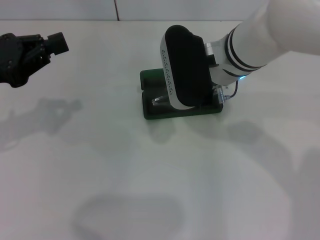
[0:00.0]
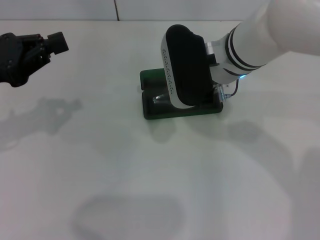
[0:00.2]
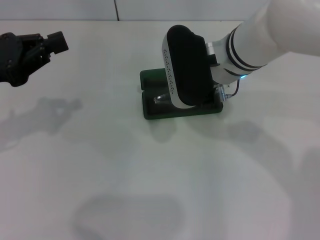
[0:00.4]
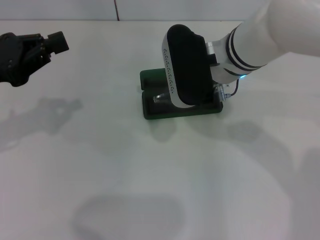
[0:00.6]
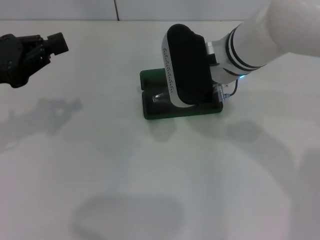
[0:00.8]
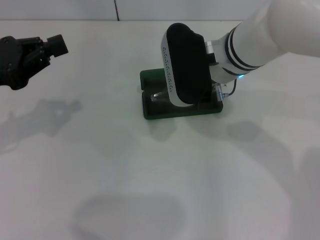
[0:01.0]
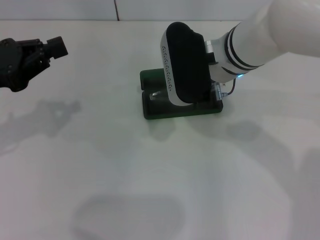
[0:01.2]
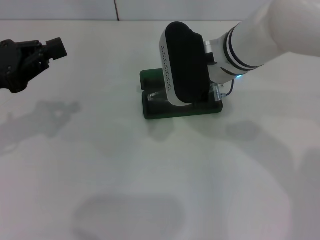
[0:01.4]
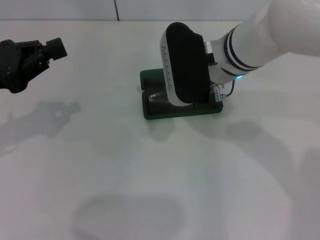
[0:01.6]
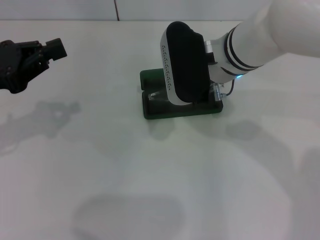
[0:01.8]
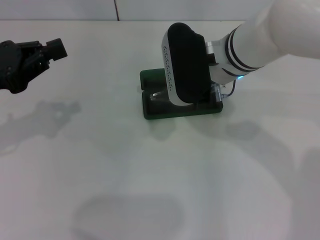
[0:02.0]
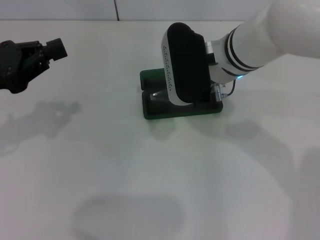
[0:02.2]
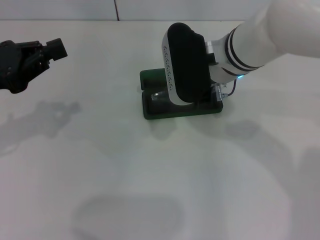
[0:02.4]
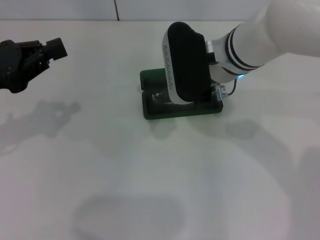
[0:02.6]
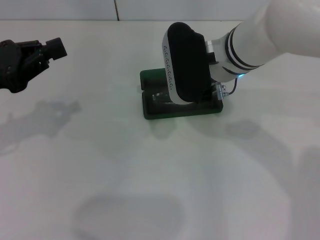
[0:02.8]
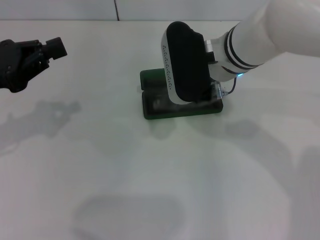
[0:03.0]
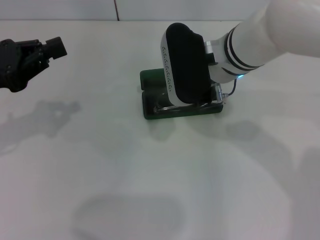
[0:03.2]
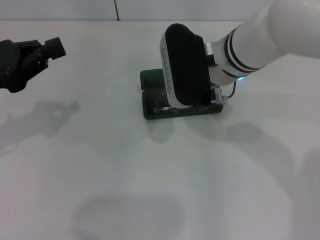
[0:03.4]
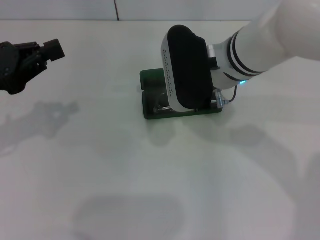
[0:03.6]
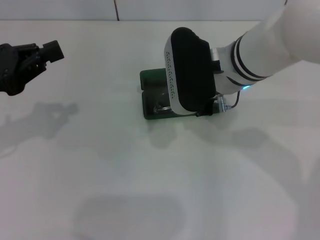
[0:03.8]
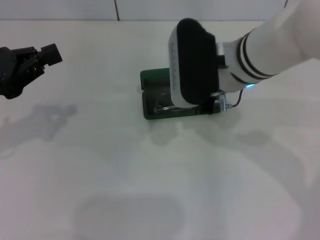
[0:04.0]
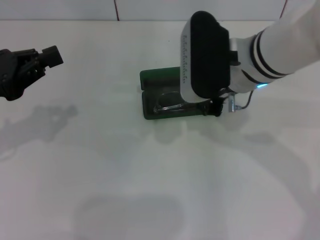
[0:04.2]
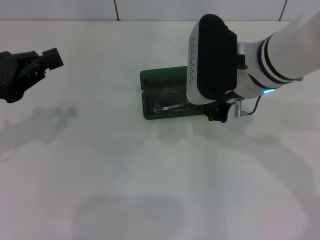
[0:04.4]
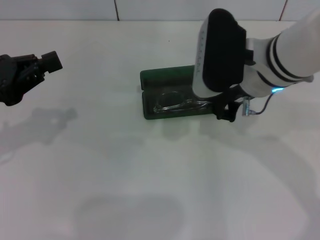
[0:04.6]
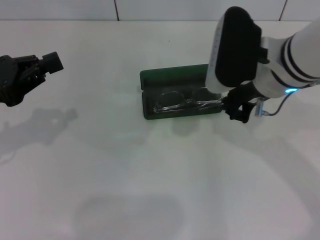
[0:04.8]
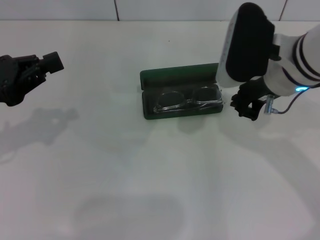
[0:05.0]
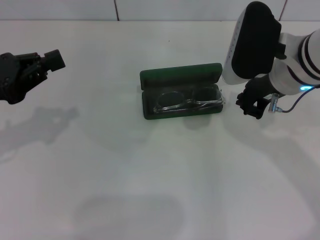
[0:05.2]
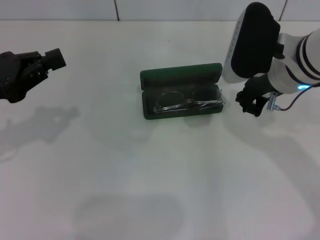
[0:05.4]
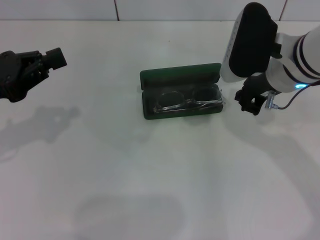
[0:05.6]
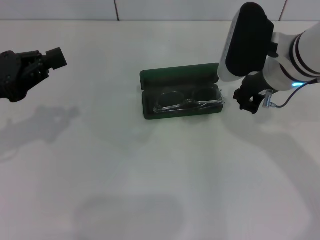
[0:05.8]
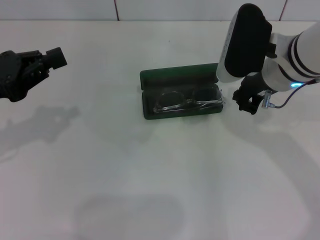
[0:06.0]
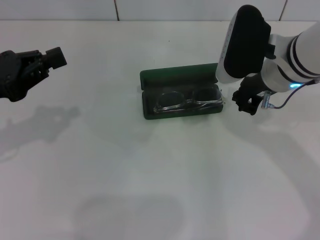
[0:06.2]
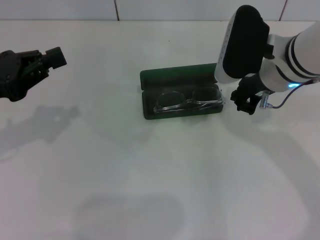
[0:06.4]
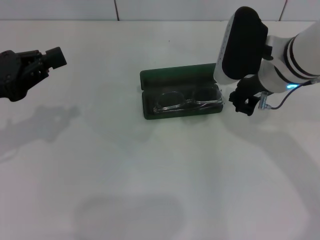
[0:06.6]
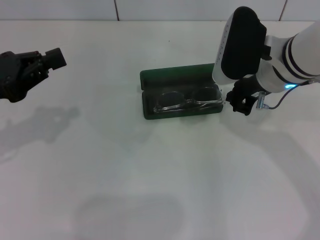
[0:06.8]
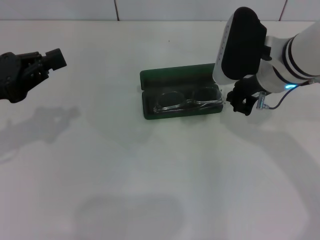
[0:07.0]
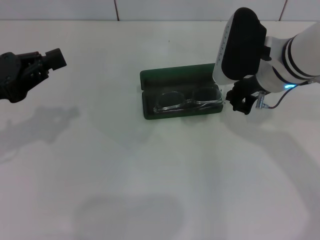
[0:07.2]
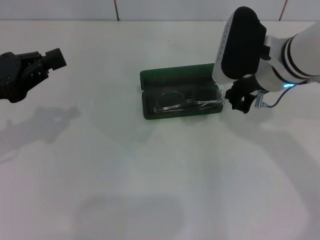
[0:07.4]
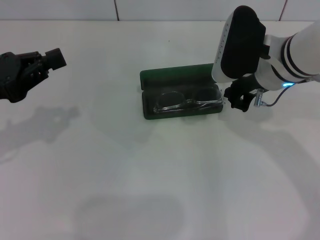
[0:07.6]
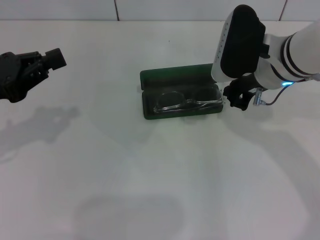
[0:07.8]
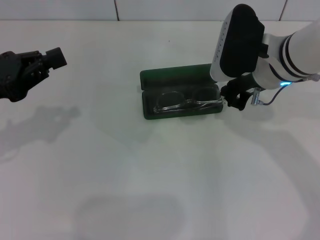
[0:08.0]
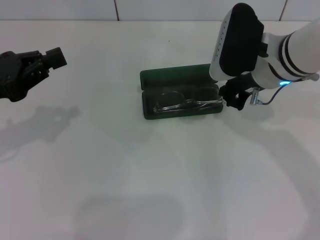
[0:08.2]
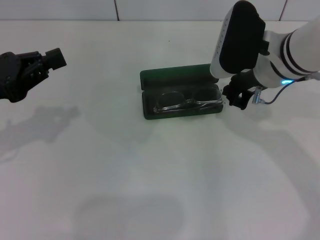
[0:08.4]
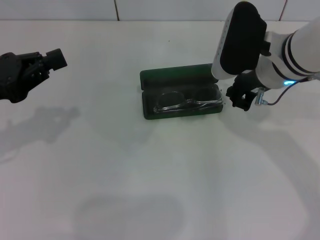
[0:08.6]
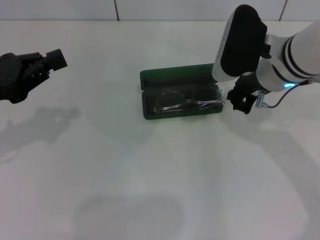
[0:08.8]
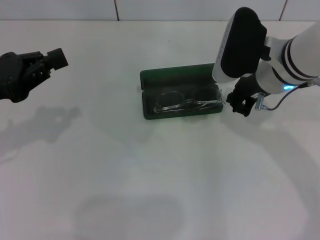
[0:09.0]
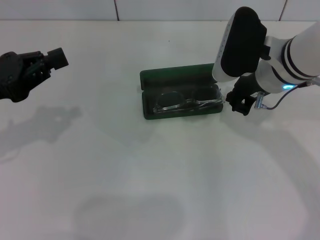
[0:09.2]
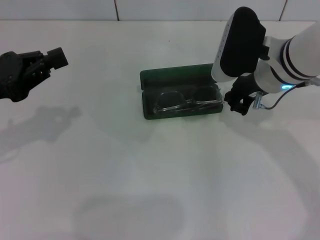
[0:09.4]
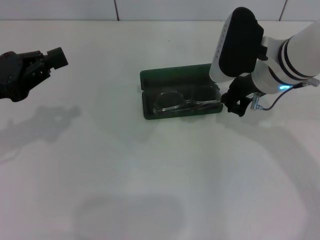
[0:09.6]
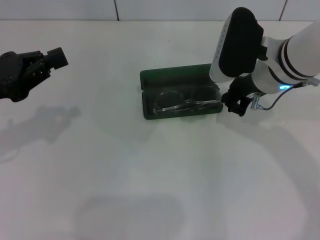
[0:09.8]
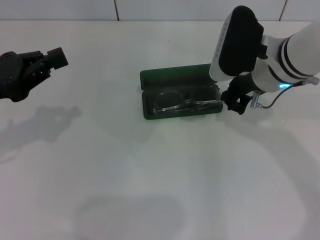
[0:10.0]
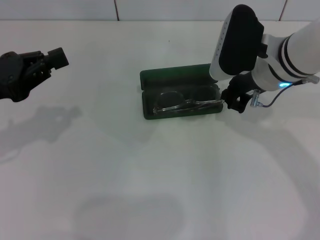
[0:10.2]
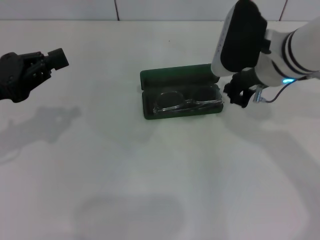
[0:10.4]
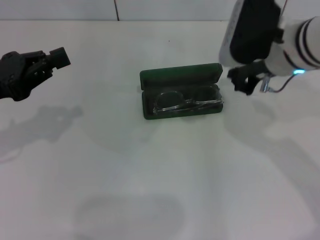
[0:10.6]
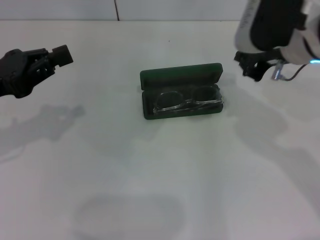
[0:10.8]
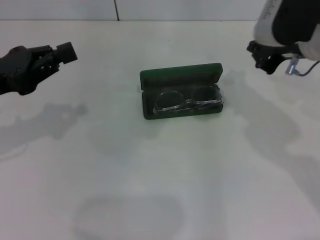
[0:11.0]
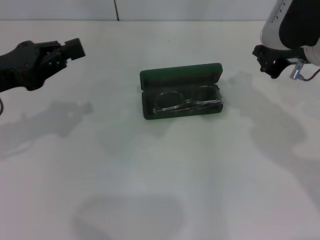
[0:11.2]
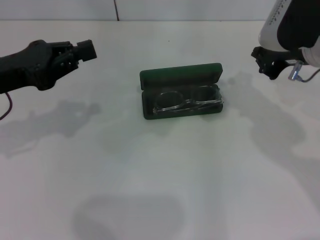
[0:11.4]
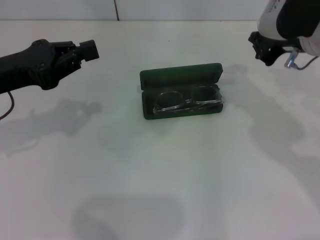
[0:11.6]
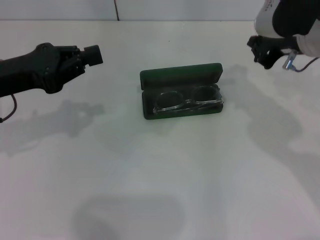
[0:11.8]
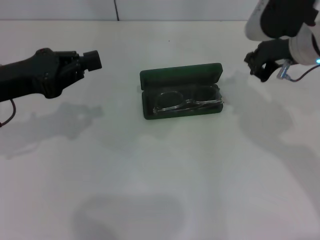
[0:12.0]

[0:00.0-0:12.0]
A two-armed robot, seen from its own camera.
Step, 0:00.0 to 0:03.6: Put the glasses into the case with your right hand.
0:00.0 to 0:03.0: Neither gripper changes place.
0:03.0 to 0:04.4: The right gripper moves about 5 cm.
0:04.4 to 0:06.0: The right gripper ends up some 5 cm from where it was.
0:06.0 to 0:07.6: Both grippers stay about where they are.
0:07.6 to 0:10.4: Neither gripper changes place.
0:10.4 to 0:12.0: The right gripper moves roughly 5 cm.

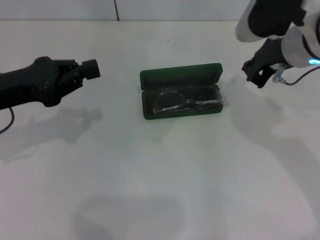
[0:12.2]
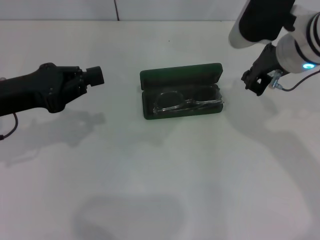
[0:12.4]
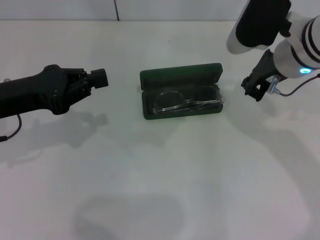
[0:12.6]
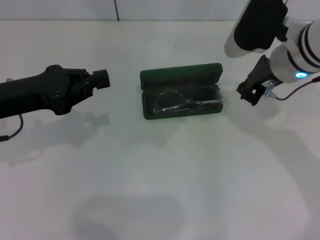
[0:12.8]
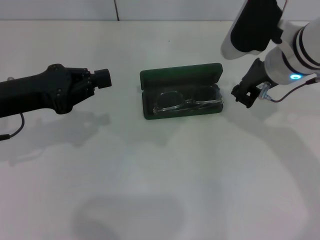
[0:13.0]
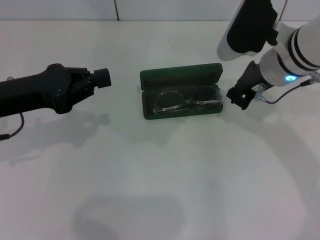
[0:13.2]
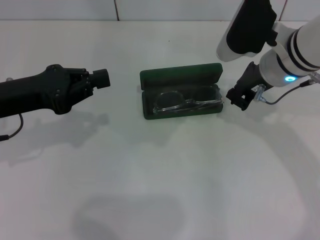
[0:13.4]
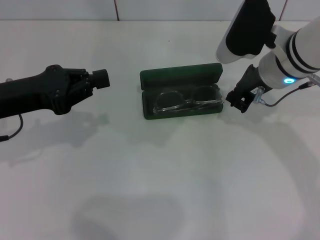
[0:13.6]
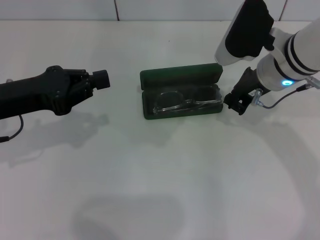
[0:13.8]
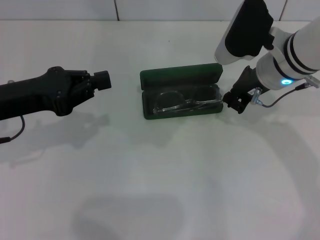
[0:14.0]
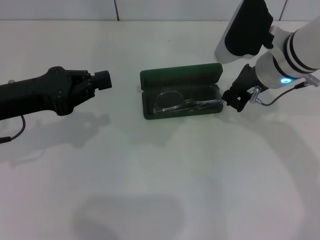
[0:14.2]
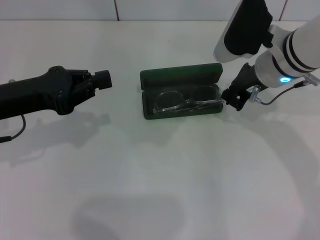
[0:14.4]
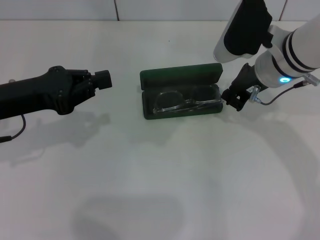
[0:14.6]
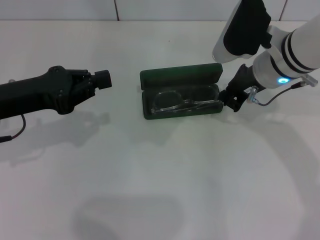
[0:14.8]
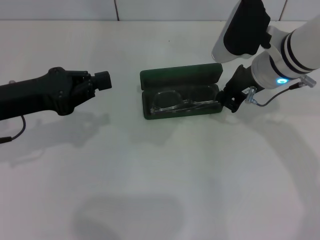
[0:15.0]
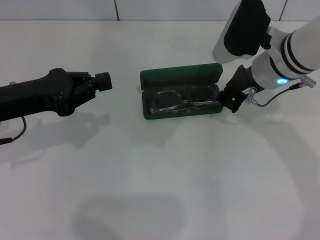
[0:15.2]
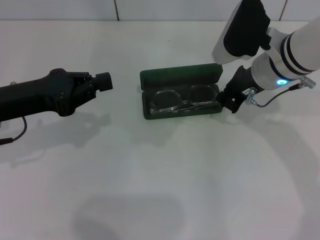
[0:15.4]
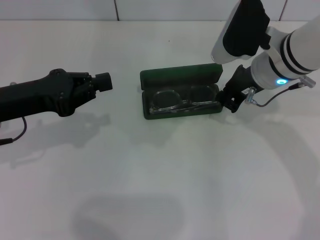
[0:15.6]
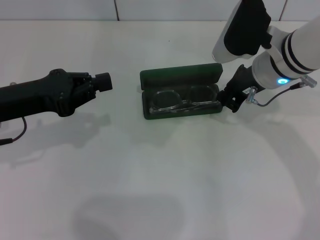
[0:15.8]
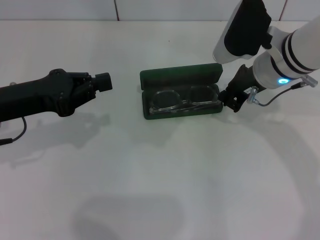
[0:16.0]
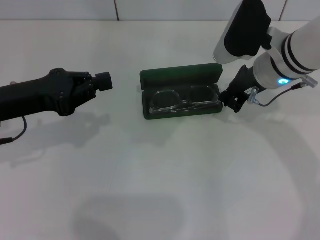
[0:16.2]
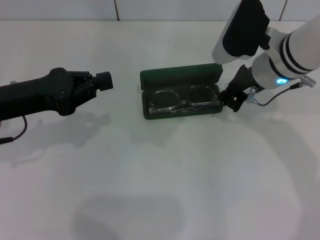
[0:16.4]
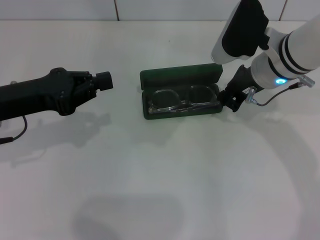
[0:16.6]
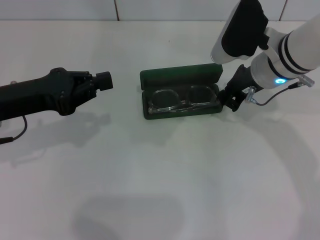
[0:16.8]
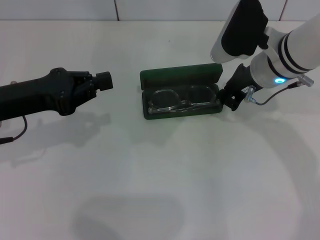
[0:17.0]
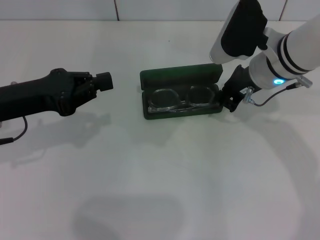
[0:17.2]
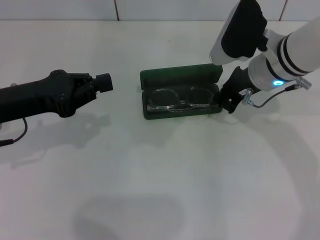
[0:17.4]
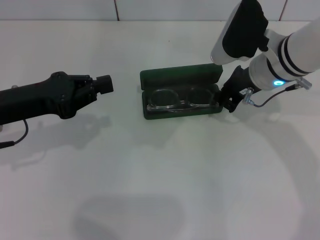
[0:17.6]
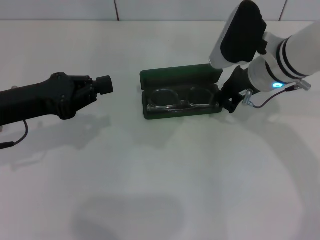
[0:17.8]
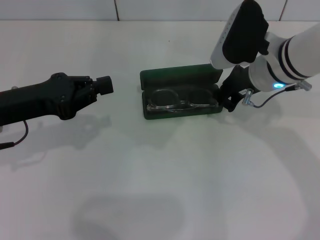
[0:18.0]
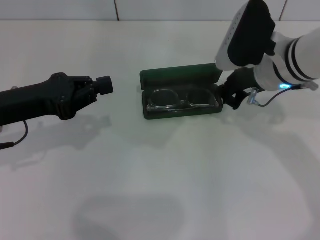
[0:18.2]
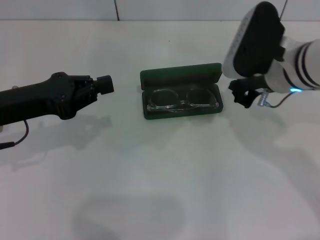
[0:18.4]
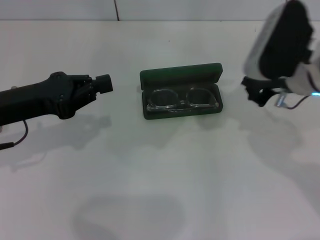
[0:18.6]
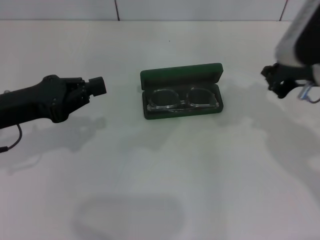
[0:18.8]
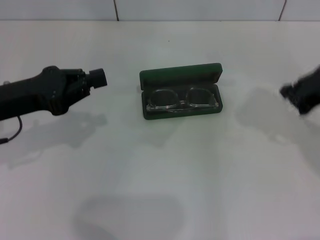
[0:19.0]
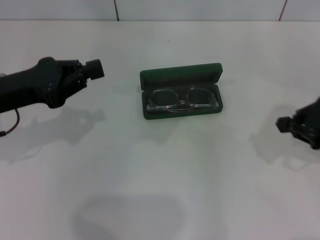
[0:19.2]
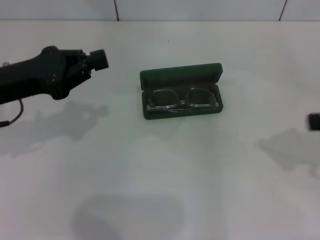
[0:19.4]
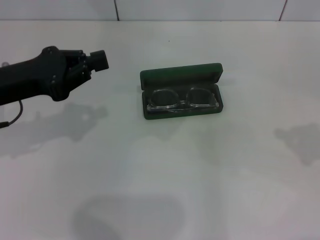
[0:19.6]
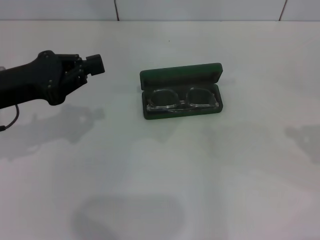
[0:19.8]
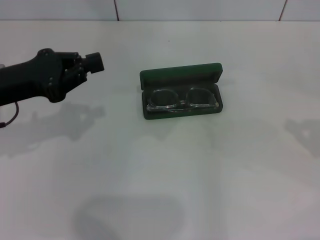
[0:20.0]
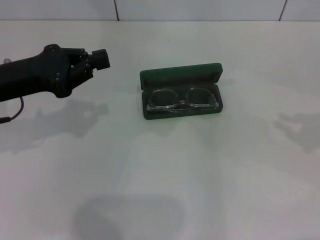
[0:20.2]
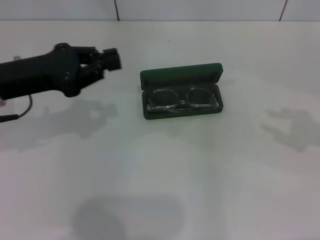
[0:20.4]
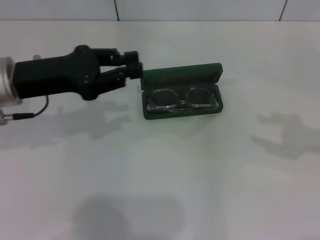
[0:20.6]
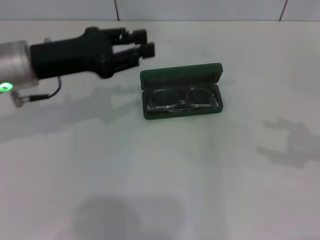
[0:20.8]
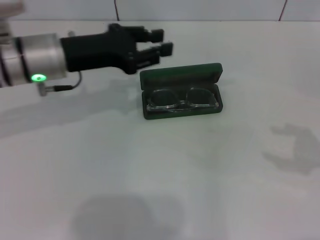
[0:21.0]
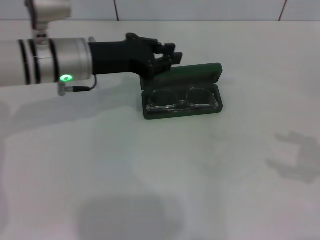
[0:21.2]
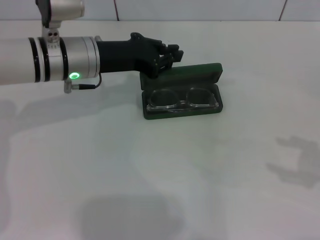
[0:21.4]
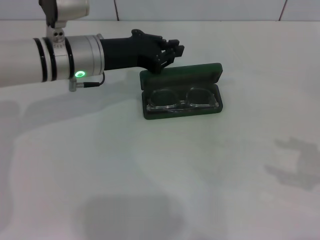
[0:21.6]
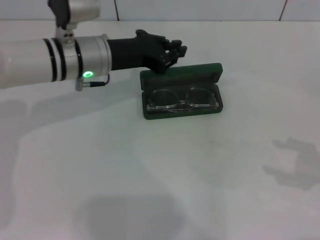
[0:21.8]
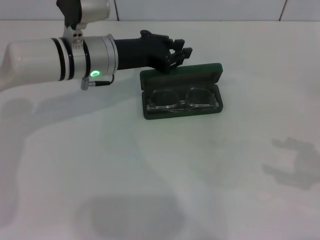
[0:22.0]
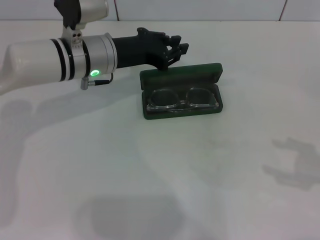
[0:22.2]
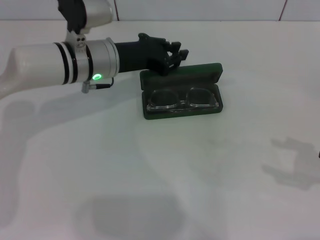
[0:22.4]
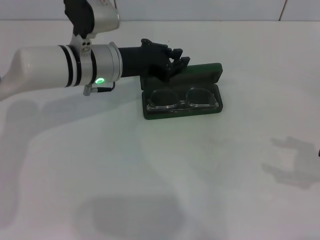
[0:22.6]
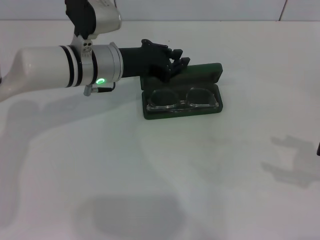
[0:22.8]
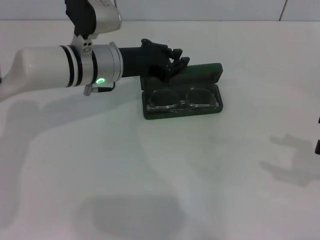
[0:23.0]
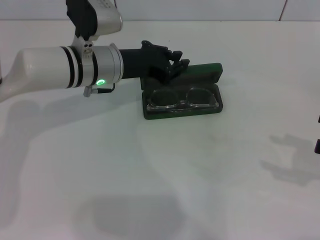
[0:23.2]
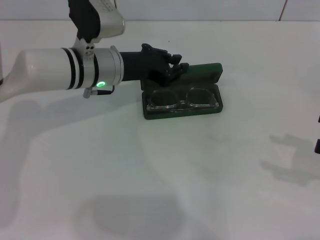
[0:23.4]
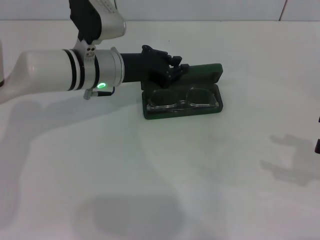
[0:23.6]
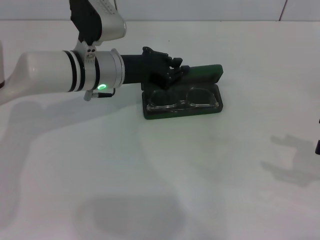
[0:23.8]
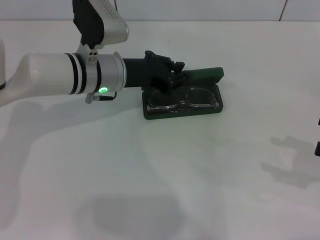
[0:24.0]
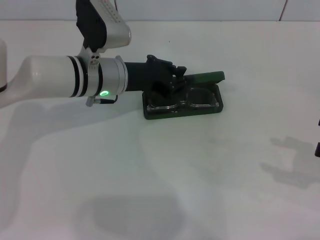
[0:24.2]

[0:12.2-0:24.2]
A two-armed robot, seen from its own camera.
0:12.2 to 0:13.8: The right gripper shifts some 5 cm downward.
0:13.8 to 0:16.6: Neither gripper changes place.
0:16.6 to 0:18.2: The grippers stay close to where they were, moving slightly.
0:18.2 to 0:19.8: The right gripper goes roughly 30 cm to the right and backward.
0:19.8 to 0:21.2: The right gripper opens up; the left gripper heads to the right and forward, covering some 15 cm, and opens its fingers.
0:21.2 to 0:22.6: The left gripper changes place by approximately 5 cm.
0:22.6 to 0:24.2: The grippers move only a little.
